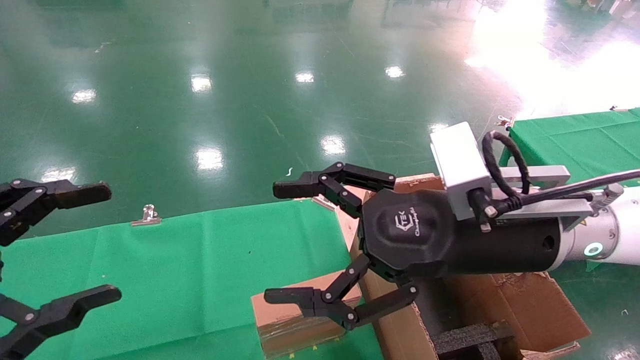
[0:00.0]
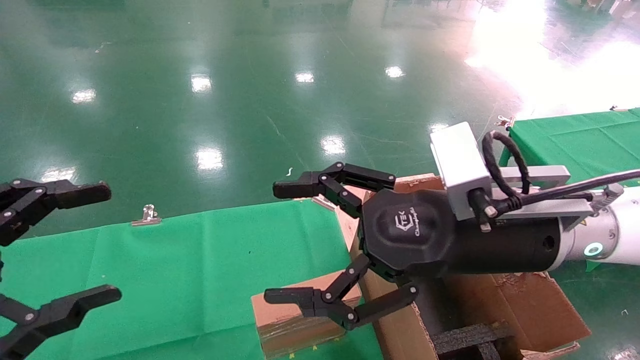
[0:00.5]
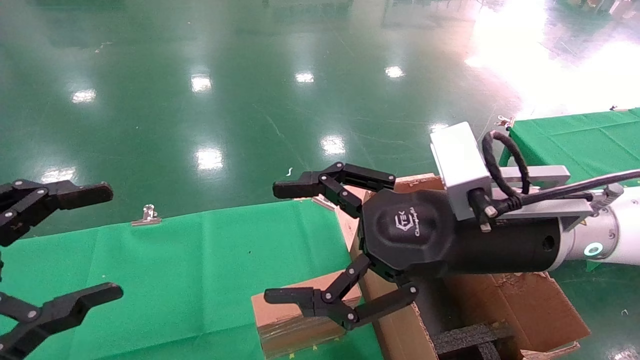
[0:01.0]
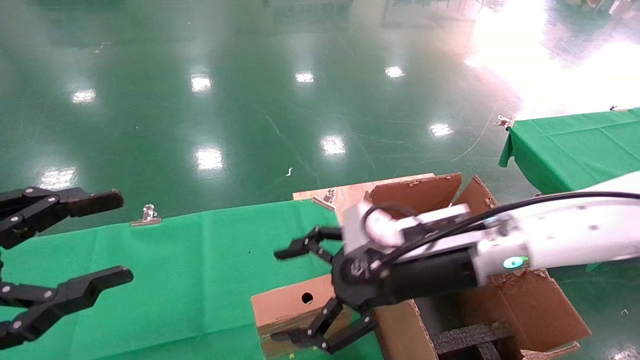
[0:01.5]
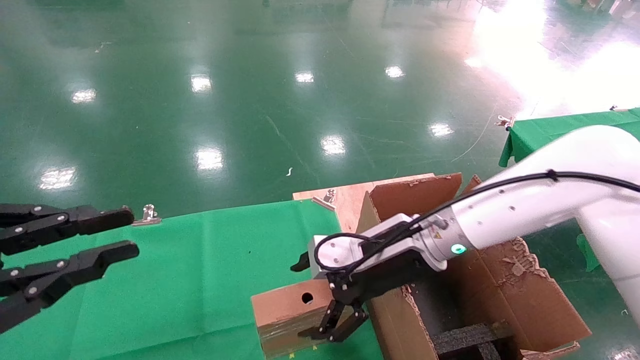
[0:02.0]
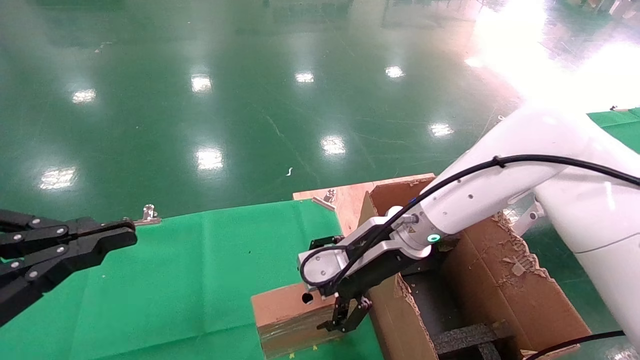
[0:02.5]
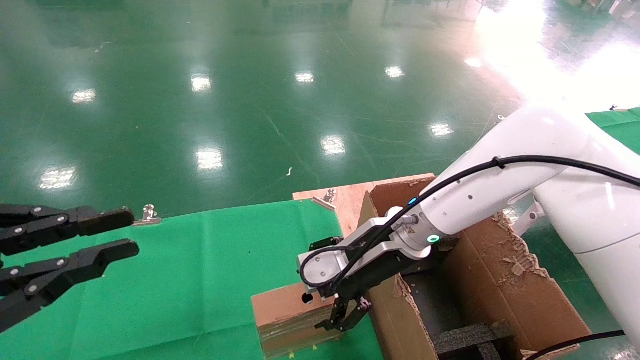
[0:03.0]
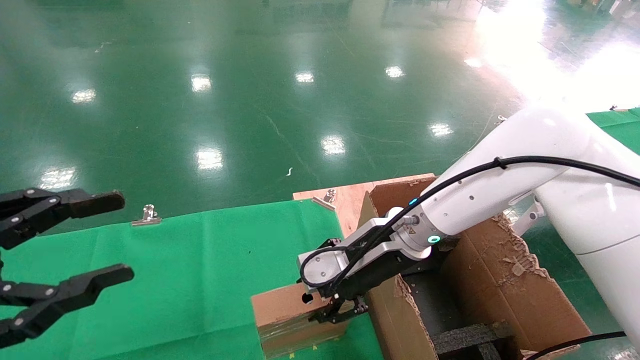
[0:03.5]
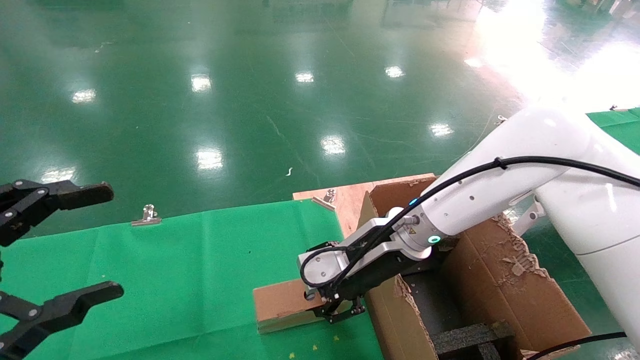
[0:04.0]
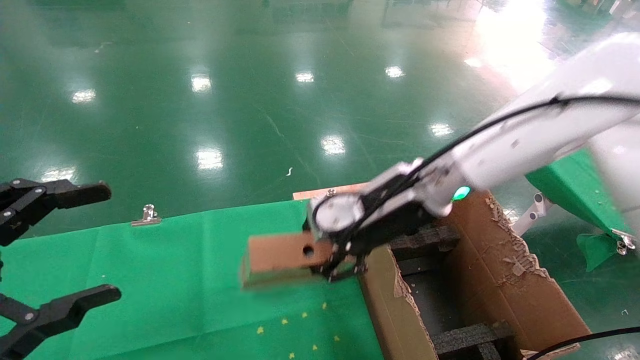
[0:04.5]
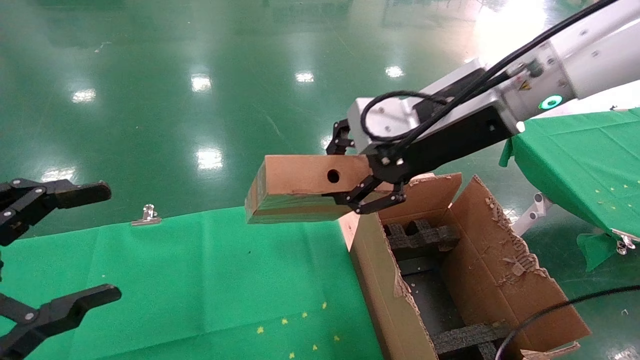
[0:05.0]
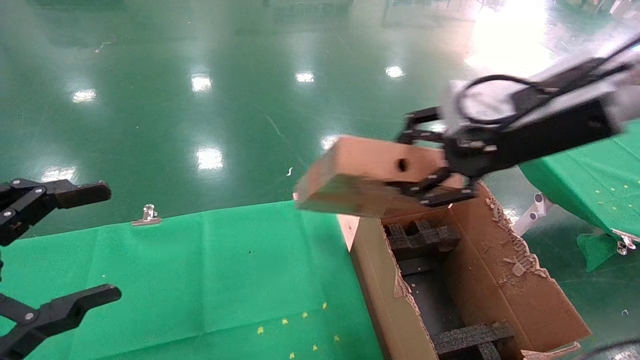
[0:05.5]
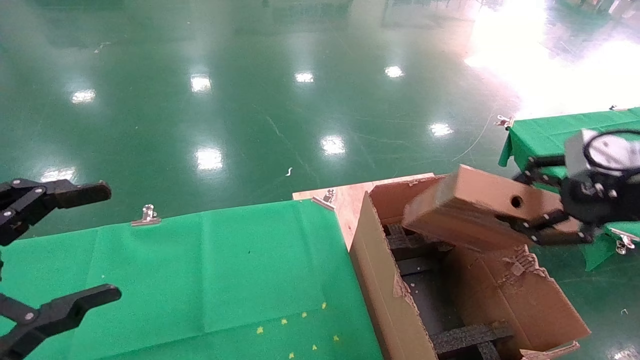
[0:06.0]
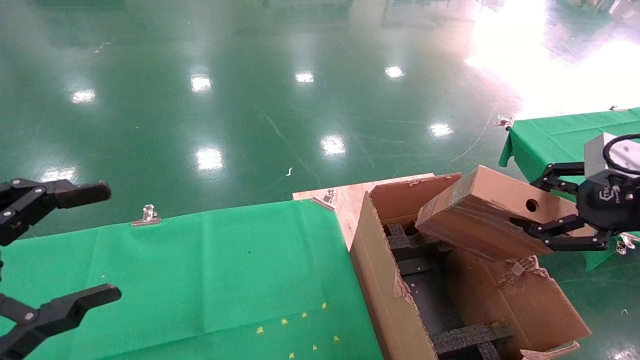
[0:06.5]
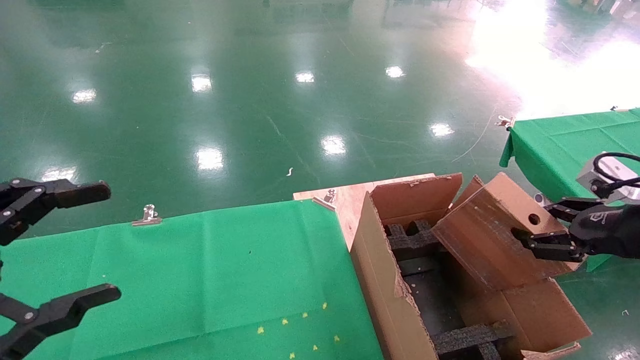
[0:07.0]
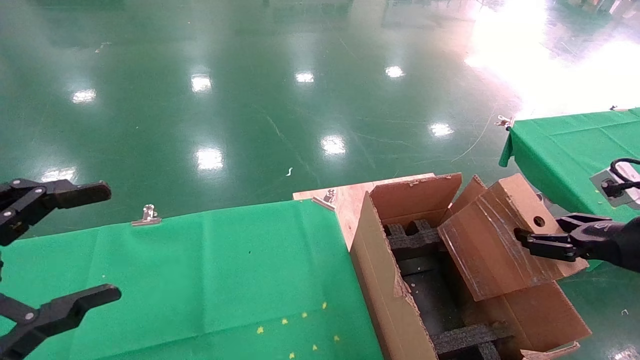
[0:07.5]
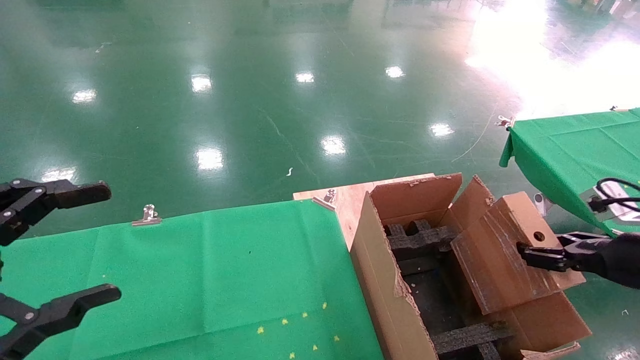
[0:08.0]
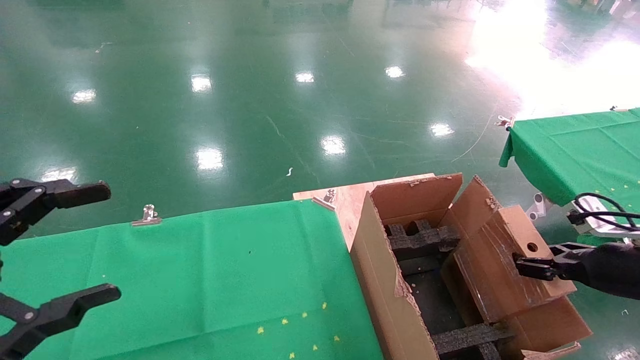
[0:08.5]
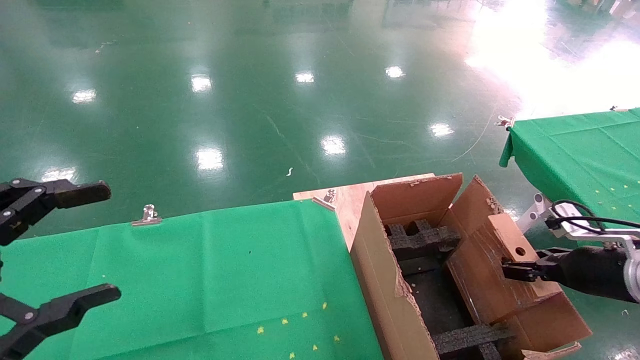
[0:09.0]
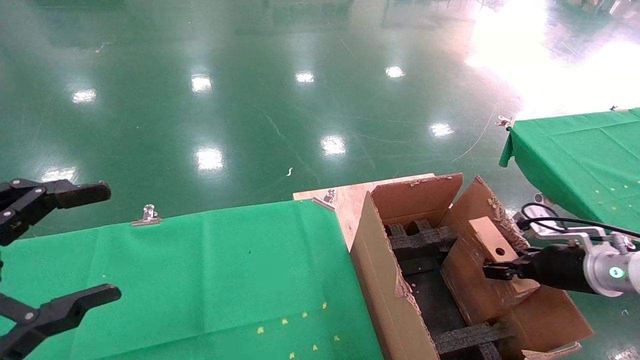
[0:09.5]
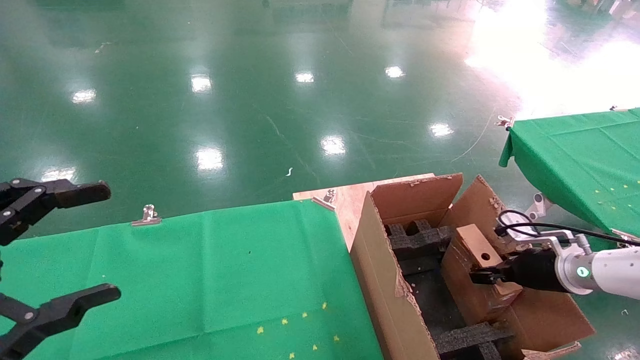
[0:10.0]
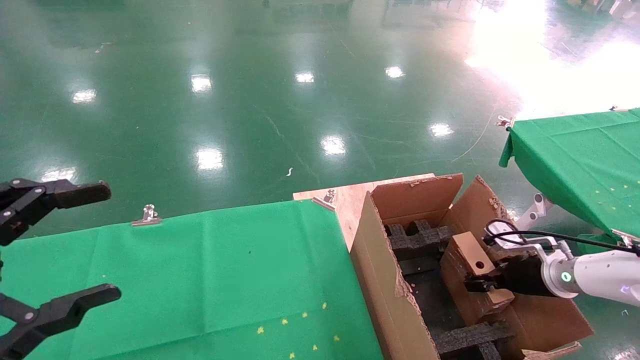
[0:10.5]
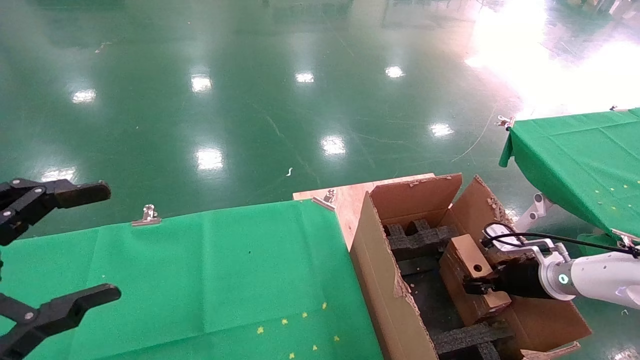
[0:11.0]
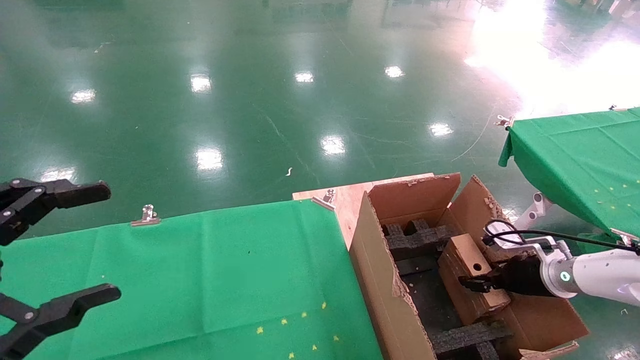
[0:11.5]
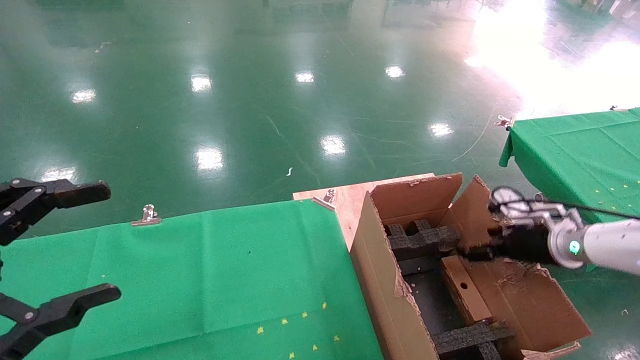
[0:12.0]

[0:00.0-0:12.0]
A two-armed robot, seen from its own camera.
Task of the whole recording: using a robotic arm to pick up a cardboard box and palace it the carton.
Step, 0:01.5 to 0:03.5: Pick up the mouse and the power cord paper box.
0:00.0 to 0:02.0: The right gripper is displaced forward and downward by roughly 15 cm; the left gripper closes up.
0:02.0 to 0:04.0: The right gripper closes. The left gripper opens its fingers.
0:04.0 to 0:06.0: The right gripper travels to the right, backward and upward by about 30 cm.
0:06.0 to 0:08.0: The right gripper heads downward and to the right, covering about 15 cm.
0:08.0 to 0:10.0: The right gripper heads forward and downward, covering about 15 cm.
0:10.0 to 0:12.0: The right gripper moves roughly 5 cm, and opens up.

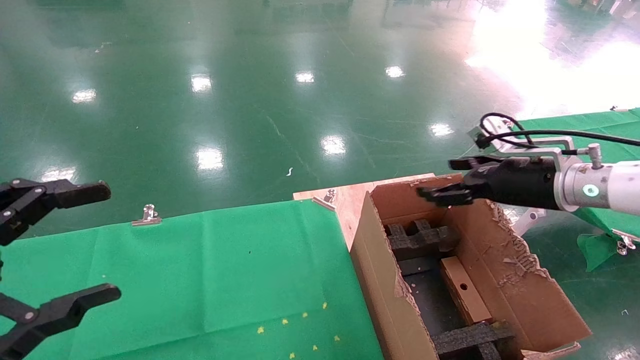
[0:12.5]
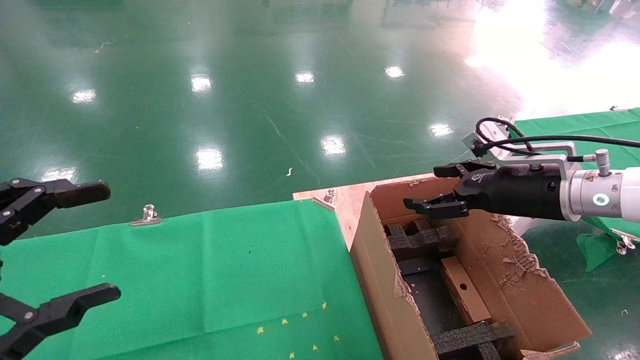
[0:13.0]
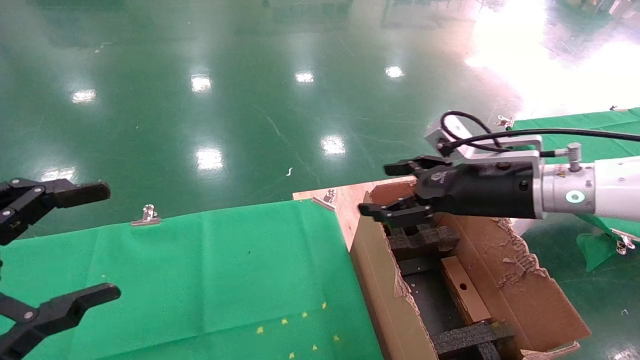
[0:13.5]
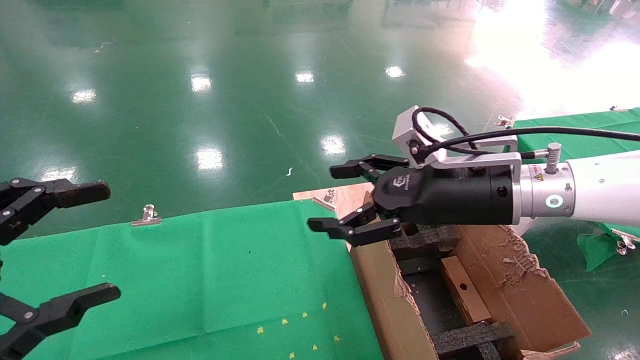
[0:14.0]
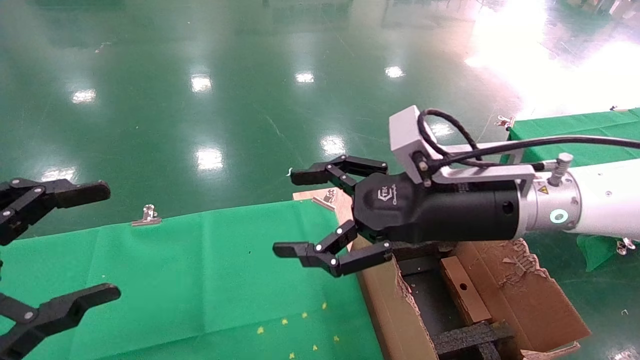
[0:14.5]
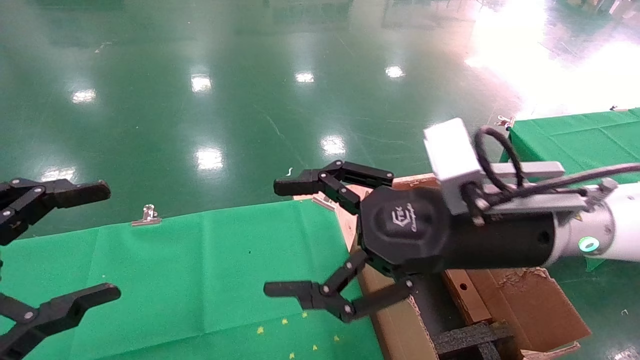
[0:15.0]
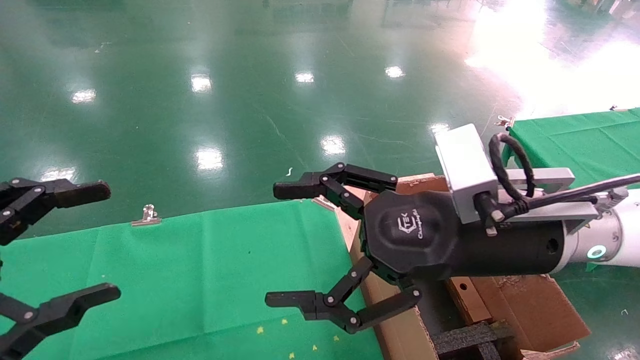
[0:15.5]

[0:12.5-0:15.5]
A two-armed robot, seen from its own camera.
Task of the whole recording: using a robotic arm to pick up a cardboard box and palace it the carton.
0:12.5 to 0:14.0: The right gripper travels to the left by about 15 cm.
0:14.0 to 0:15.5: The right gripper moves backward, approximately 5 cm.
